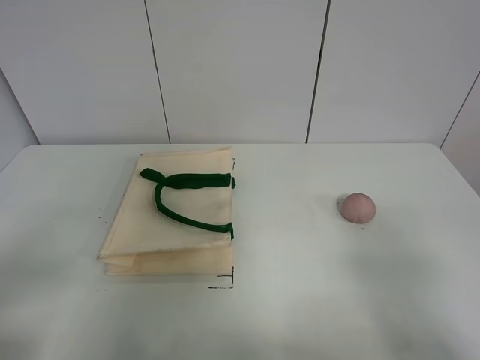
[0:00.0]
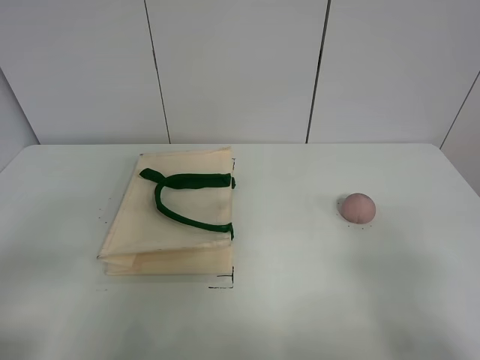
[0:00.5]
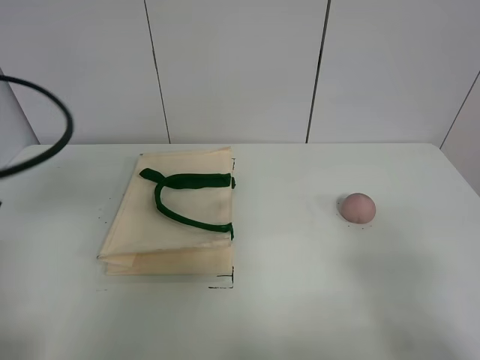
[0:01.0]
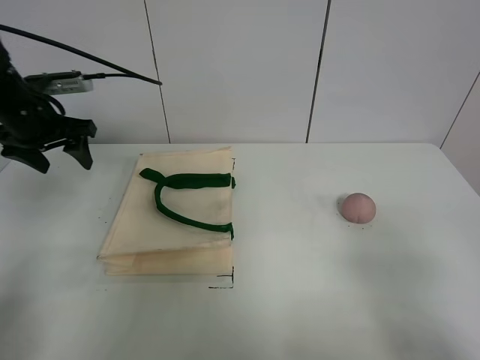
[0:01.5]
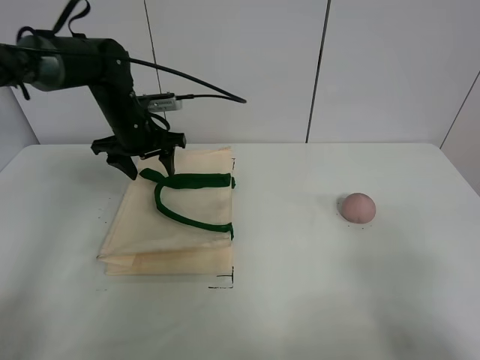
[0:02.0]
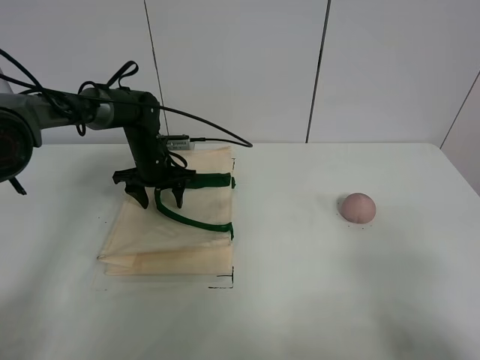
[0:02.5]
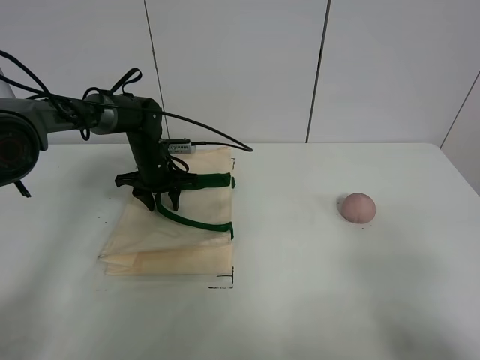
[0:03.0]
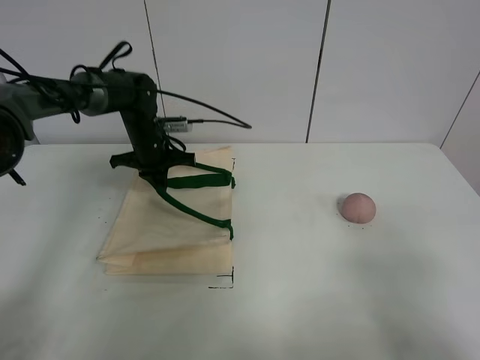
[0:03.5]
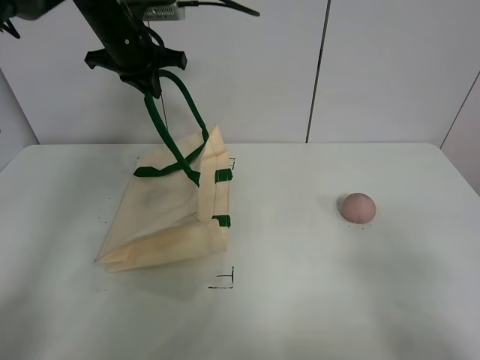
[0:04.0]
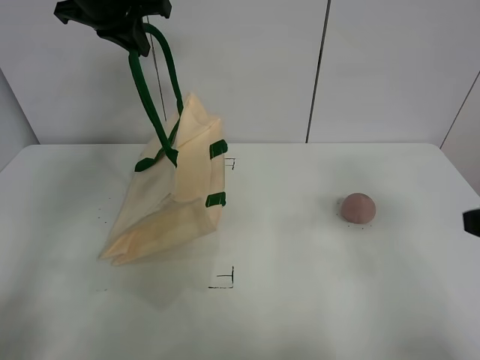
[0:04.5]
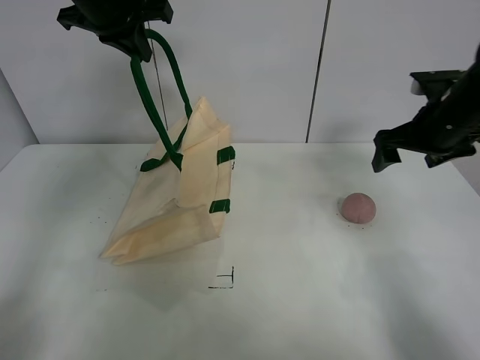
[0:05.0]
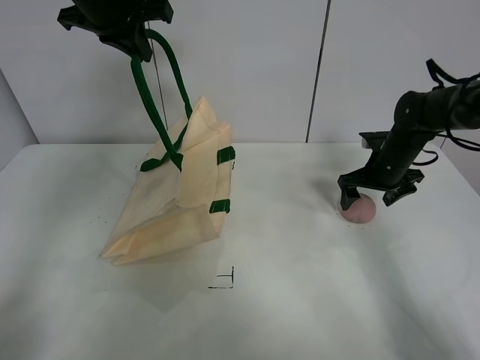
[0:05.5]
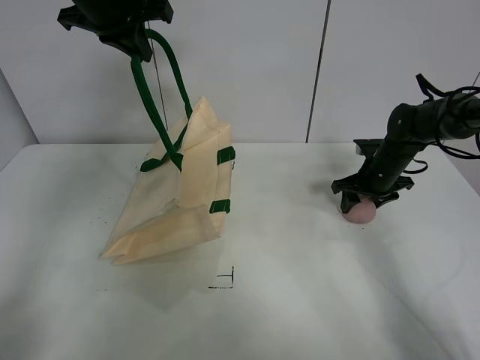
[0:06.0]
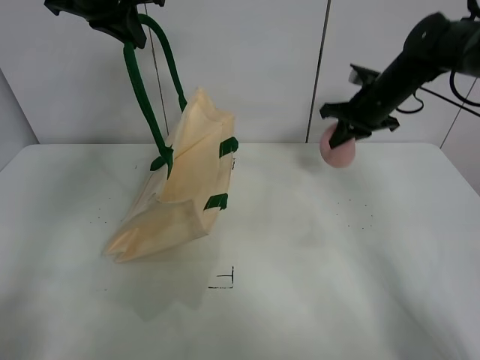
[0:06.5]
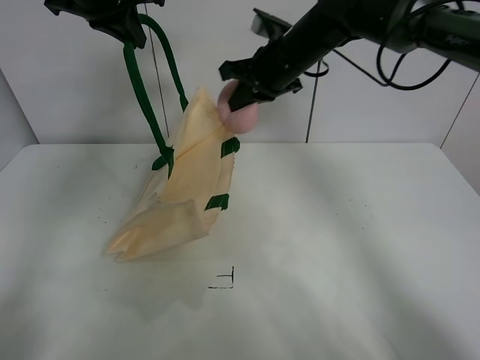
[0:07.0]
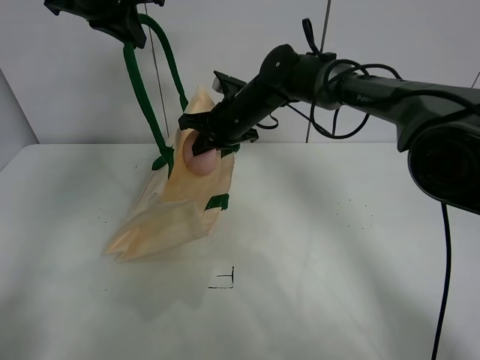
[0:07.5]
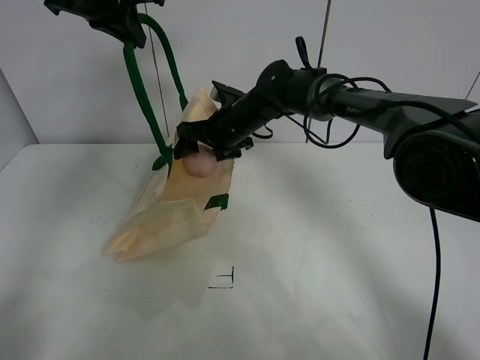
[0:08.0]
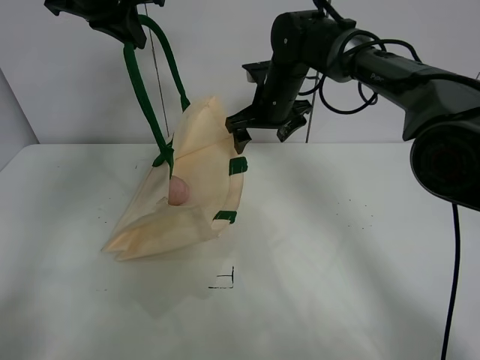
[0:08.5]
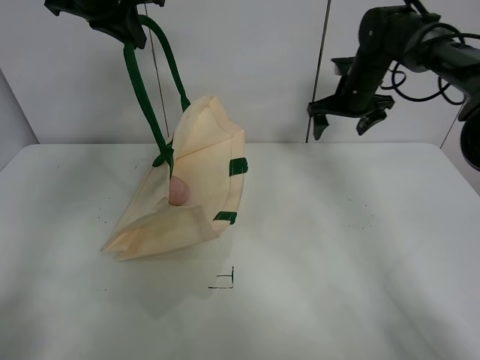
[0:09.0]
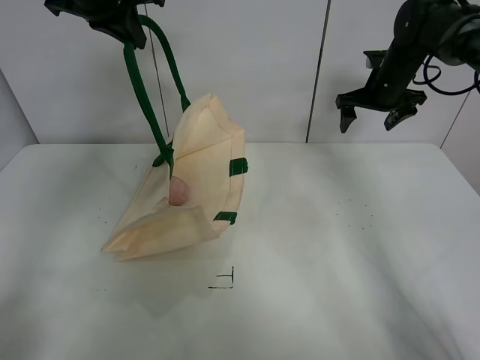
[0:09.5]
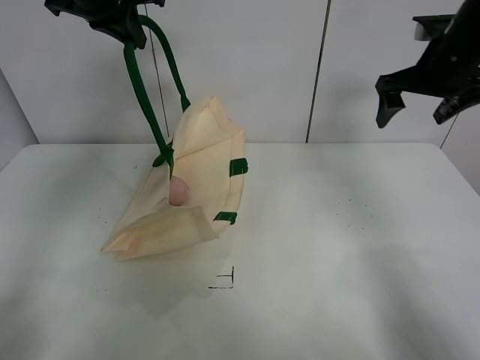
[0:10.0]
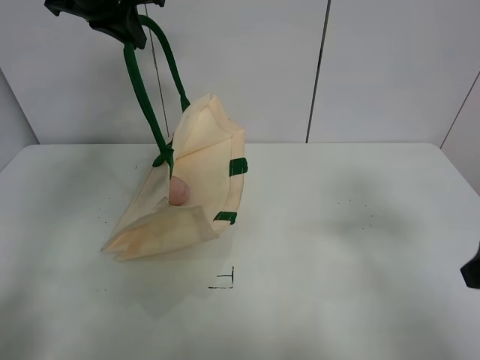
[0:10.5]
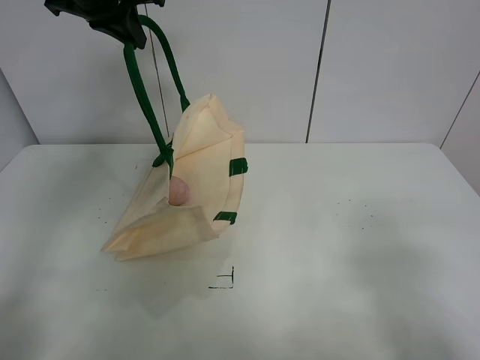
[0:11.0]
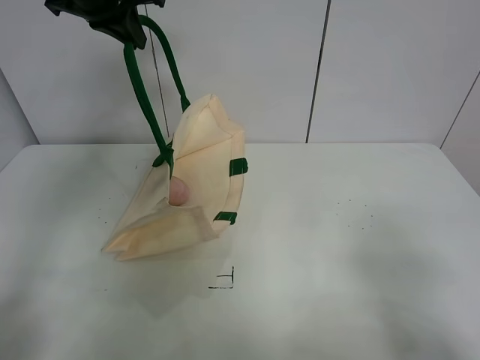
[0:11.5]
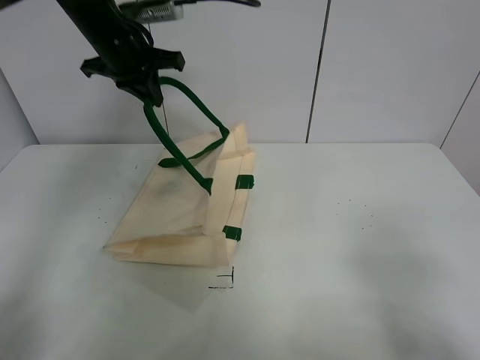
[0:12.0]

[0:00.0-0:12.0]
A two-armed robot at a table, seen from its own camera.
Task of the whole recording: open the white linen bag and put the peach in the bag.
Step, 0:00.0 to 0:04.0: Lift the handbag with left gripper.
Step, 0:04.5 to 0:06.0: Grasp the peach with right gripper.
Step, 0:06.5 to 0:08.0: Place the peach in the handbag with right gripper.
0:00.0 to 0:02.0: The left gripper is displaced forward by some 40 cm.
0:02.0 to 0:04.0: The left gripper heads upward, covering approximately 15 cm, and closes.
0:04.0 to 0:06.0: The right gripper is displaced forward by approximately 40 cm, and closes, while the left gripper goes roughly 5 cm upward.
0:06.0 to 0:08.0: The right gripper moves to the left, roughly 25 cm, and opens up.
0:08.0 to 0:10.0: The right gripper goes roughly 30 cm to the right and upward.
0:10.0 to 0:12.0: The left gripper moves downward, about 10 cm. Meanwhile the right gripper shifts some 35 cm backward.

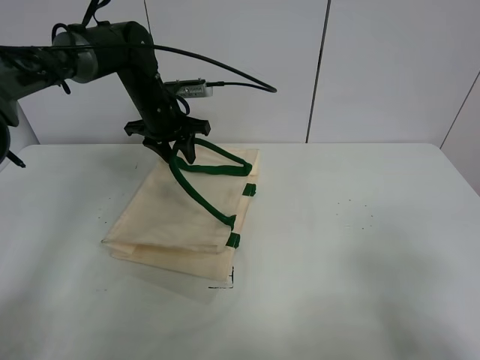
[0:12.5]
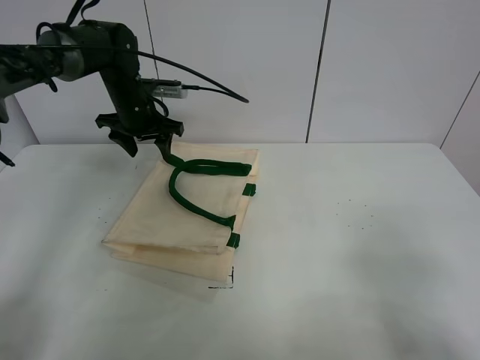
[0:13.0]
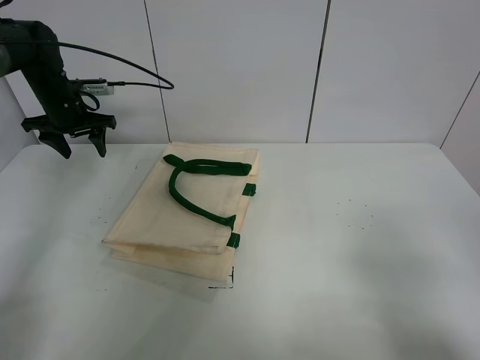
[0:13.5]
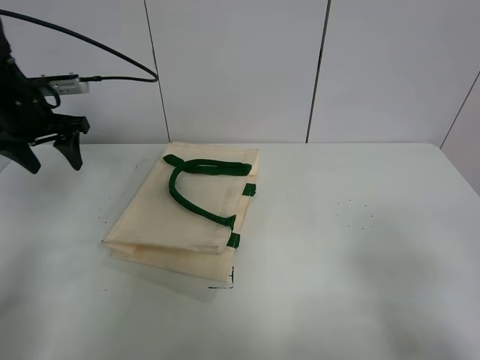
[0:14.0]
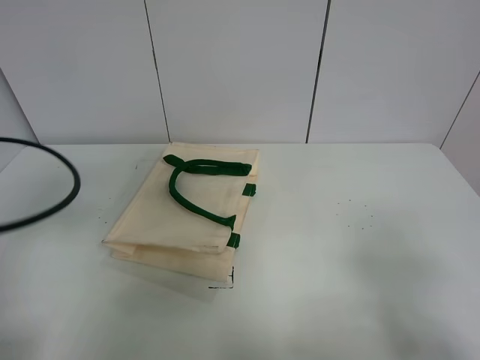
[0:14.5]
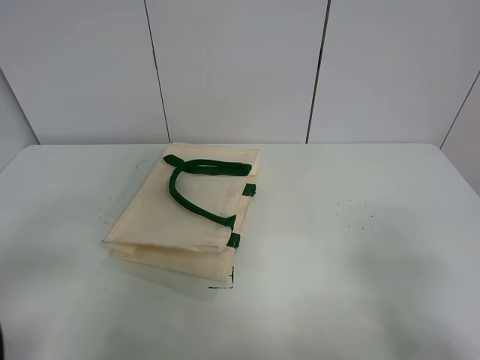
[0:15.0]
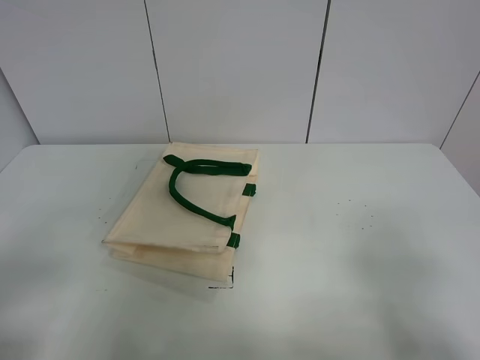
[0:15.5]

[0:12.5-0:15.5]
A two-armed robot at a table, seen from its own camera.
Task of the whole recording: open the white linen bag and put the peach in the bag.
0:12.5 to 0:14.0: The left gripper is displaced to the left and backward by about 20 cm.
0:14.0 to 0:15.5: The left gripper goes roughly 35 cm backward.
